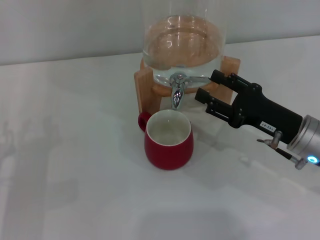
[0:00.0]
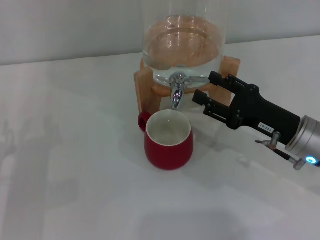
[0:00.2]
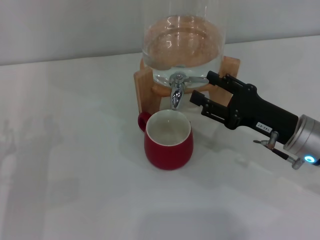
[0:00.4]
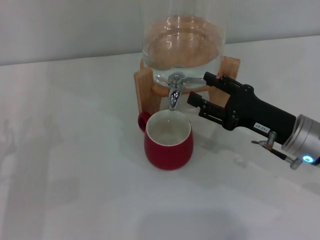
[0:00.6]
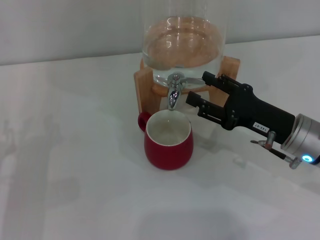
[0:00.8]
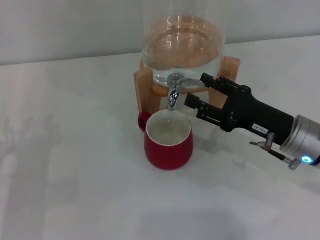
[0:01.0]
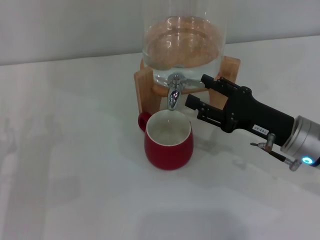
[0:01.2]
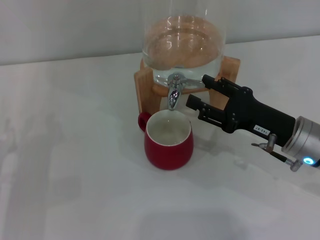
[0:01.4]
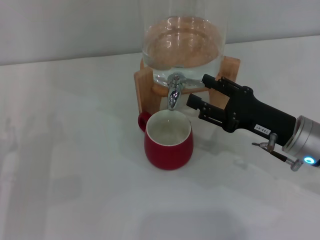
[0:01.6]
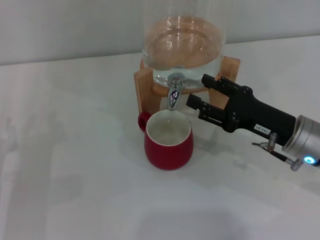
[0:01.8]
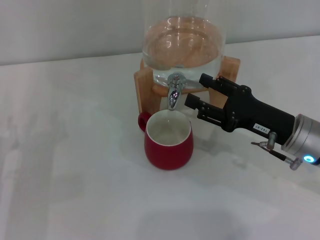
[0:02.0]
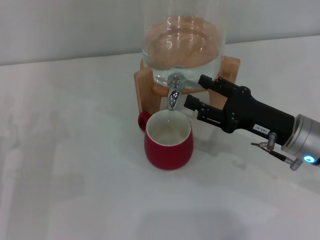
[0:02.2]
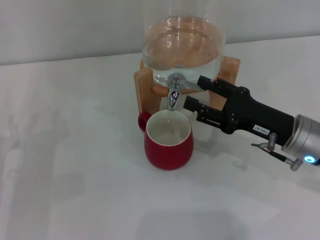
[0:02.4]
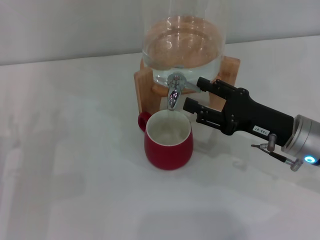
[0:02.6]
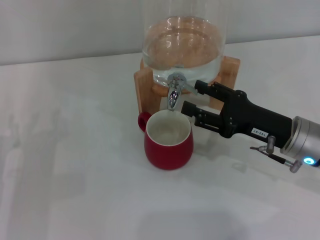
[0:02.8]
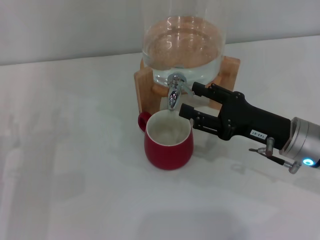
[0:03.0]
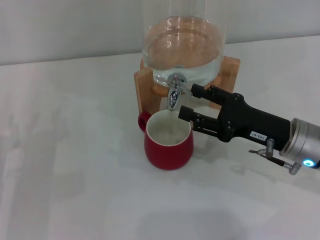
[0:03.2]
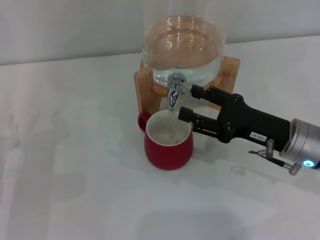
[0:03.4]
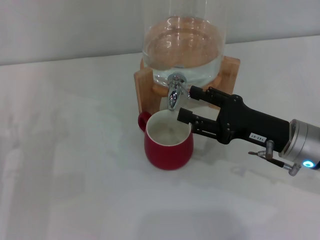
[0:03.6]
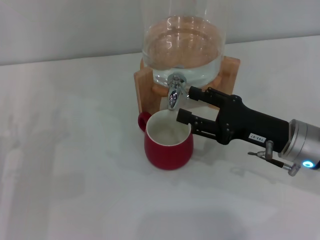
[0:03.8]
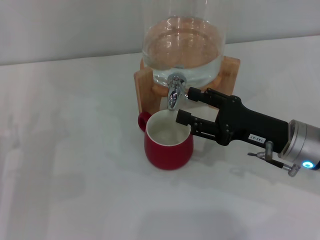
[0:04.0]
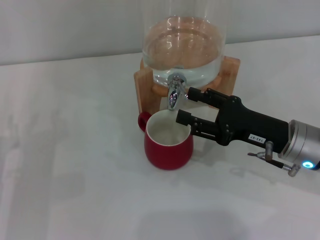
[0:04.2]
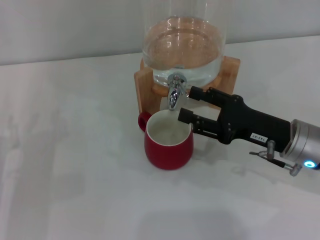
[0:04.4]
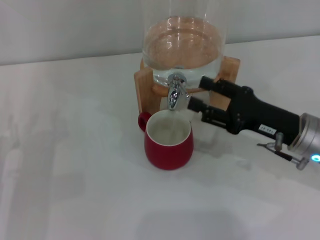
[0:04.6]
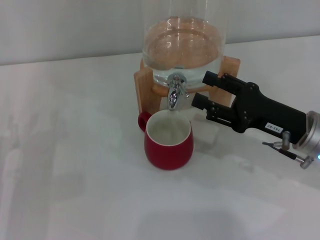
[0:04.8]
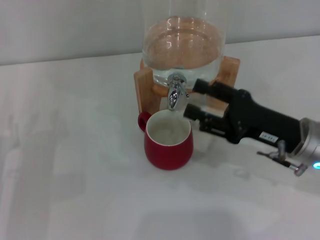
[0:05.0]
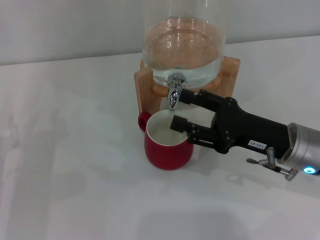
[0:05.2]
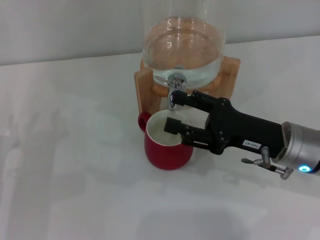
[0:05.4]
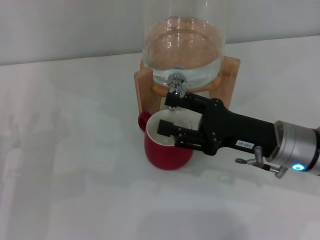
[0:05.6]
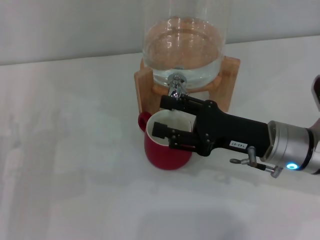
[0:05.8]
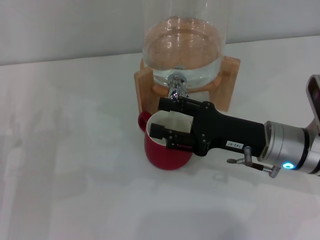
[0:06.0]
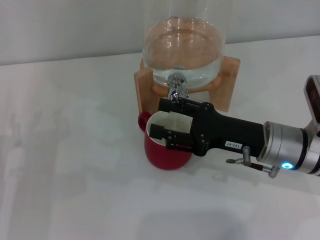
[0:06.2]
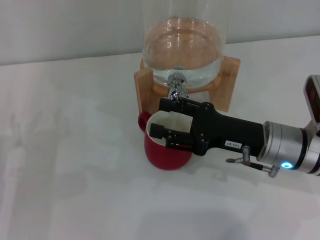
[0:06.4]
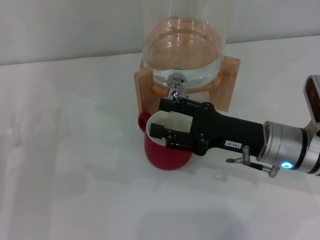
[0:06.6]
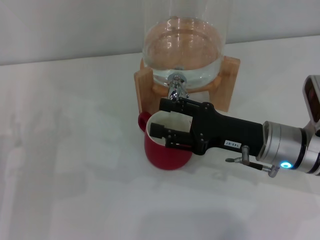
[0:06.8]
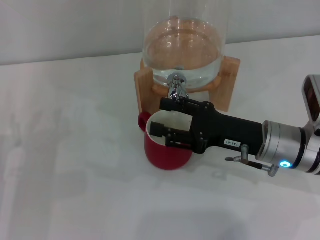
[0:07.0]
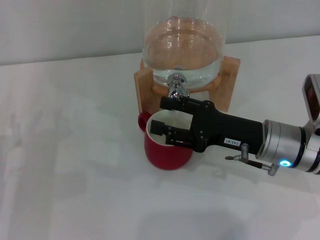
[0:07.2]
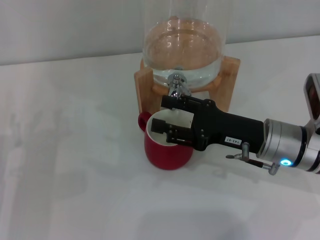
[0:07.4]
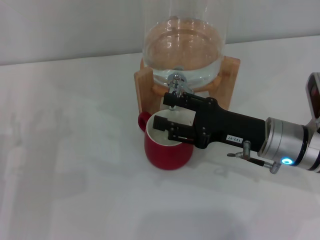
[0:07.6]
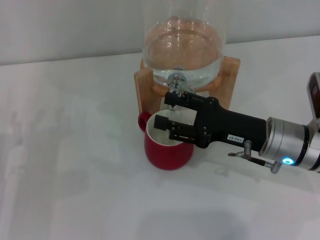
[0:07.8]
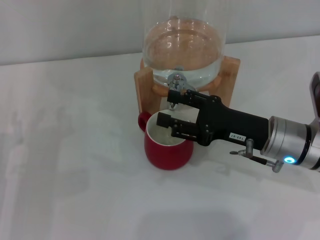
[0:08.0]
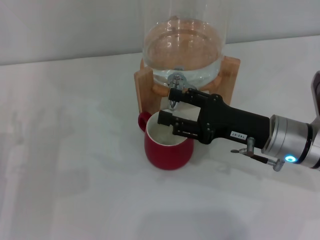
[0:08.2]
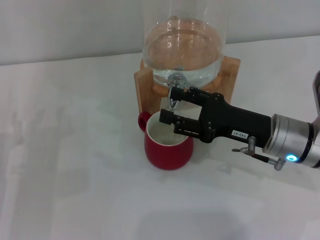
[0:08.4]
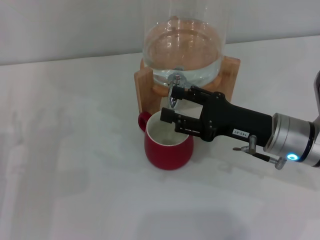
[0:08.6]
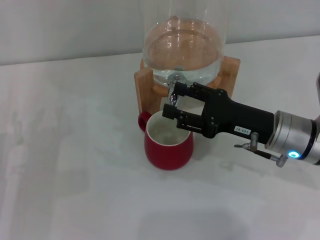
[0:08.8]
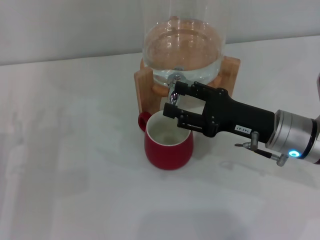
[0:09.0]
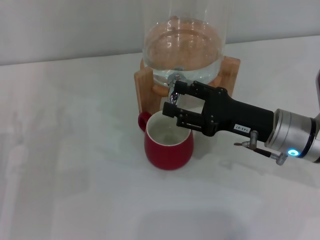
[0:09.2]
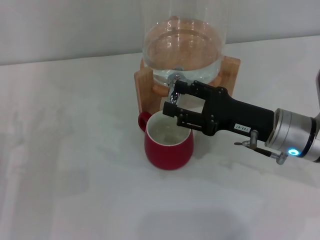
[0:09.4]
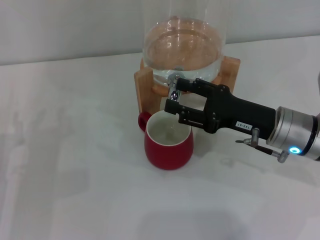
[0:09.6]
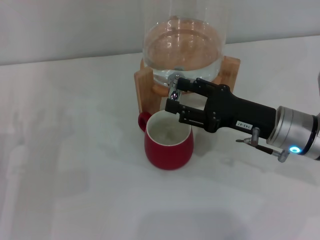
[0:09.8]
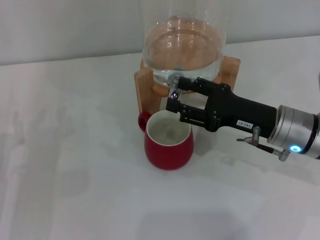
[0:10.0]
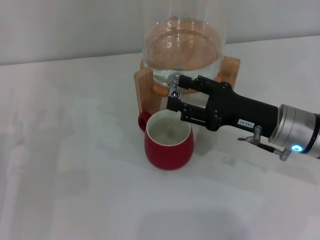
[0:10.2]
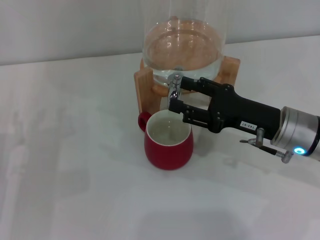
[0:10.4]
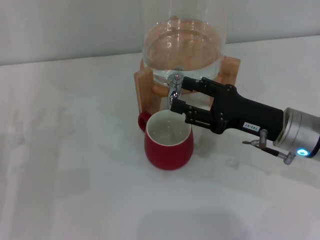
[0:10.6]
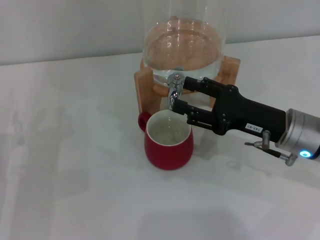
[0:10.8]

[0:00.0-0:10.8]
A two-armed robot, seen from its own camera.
Task of the whole recording: the left gripper pick up the red cup and place it horizontally under the faucet, the right gripper turn on the faucet to fill the cup, and then turn off the faucet.
Step, 0.0 to 6.4 s: Open the dispenser valve and fill the cup with water with the right gripper.
0.0 to 1.6 s: Both grippers stay put.
1.6 to 3.0 s: There are only small adjustments of the grippers.
3.0 to 4.6 s: Both grippers stay about where they are.
4.6 to 6.2 s: The grippers stay close to where they were, moving slightly.
6.2 to 7.8 s: Neither gripper changes place.
7.8 to 9.2 s: The two grippers keep their place.
9.2 to 10.8 s: The two grippers keep their place.

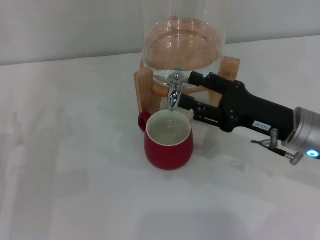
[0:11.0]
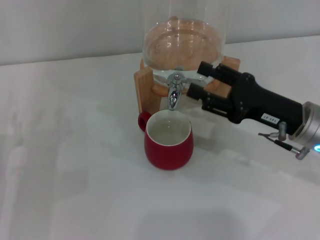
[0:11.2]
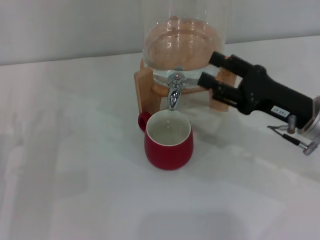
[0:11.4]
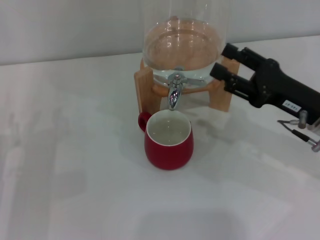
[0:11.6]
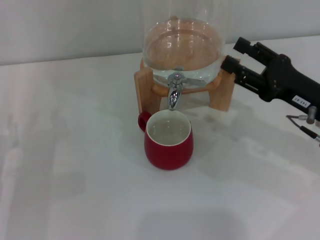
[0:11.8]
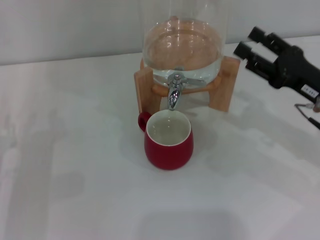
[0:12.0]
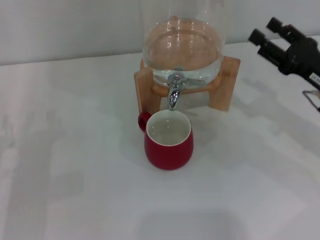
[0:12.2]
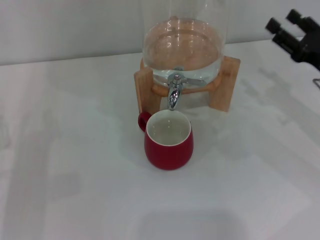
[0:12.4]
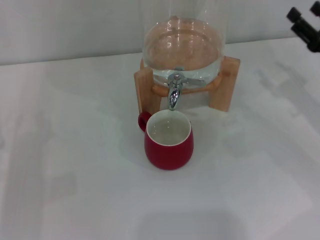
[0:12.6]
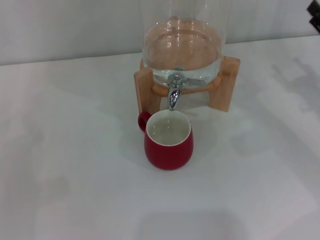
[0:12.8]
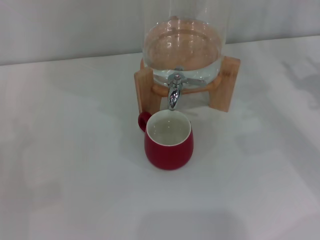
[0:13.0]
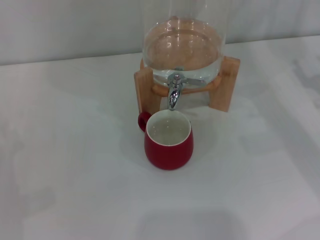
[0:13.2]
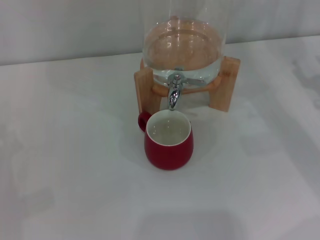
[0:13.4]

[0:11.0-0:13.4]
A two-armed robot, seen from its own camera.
Task of the whole recording: the left gripper pick up the red cup and place it horizontally under the faucet, the right gripper turn on the faucet to fill the cup, and then turn off the faucet.
11.0 to 12.2 s: The right gripper shifts some 10 cm to the right.
12.2 to 13.4 s: The right gripper heads to the right, covering approximately 5 cm.

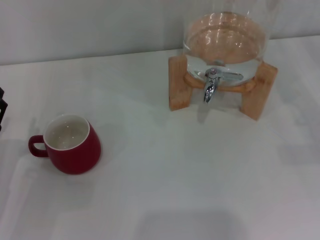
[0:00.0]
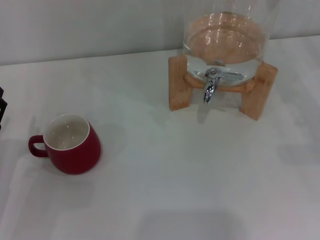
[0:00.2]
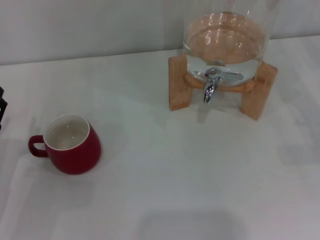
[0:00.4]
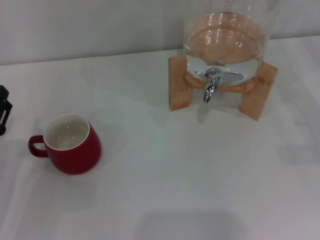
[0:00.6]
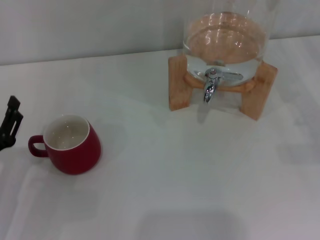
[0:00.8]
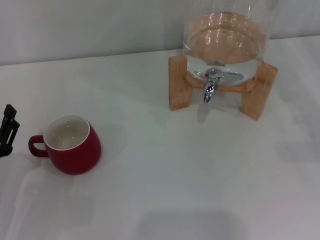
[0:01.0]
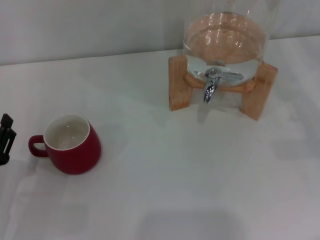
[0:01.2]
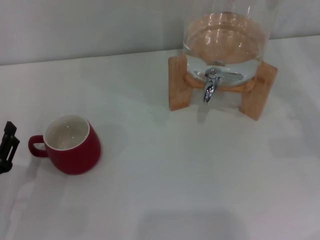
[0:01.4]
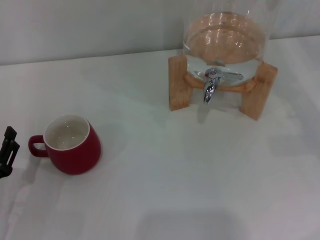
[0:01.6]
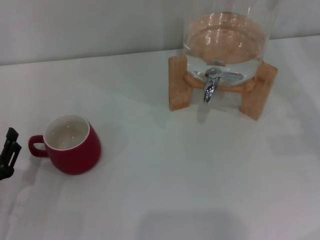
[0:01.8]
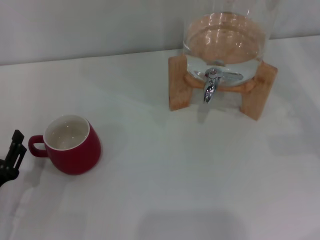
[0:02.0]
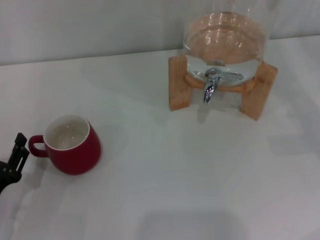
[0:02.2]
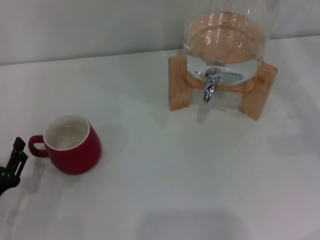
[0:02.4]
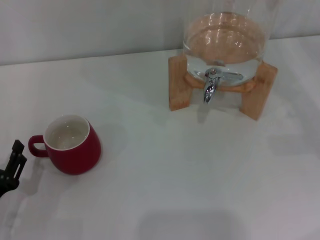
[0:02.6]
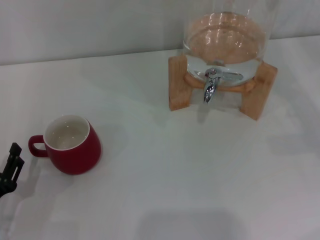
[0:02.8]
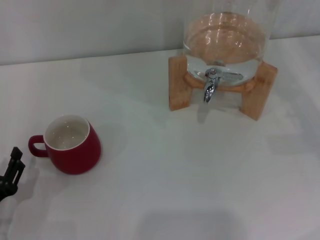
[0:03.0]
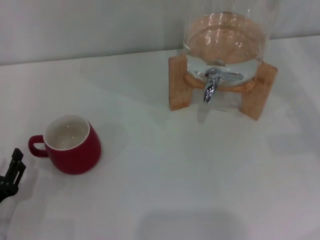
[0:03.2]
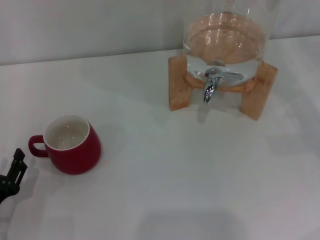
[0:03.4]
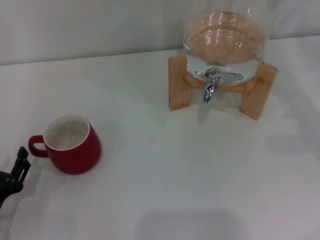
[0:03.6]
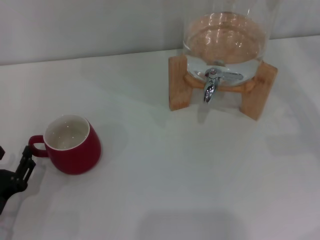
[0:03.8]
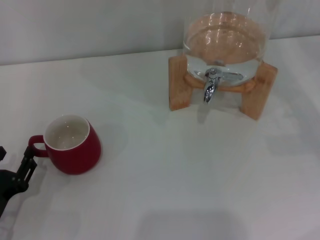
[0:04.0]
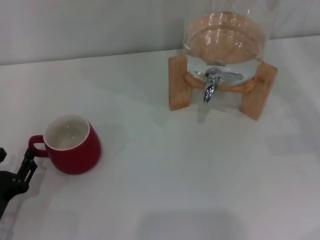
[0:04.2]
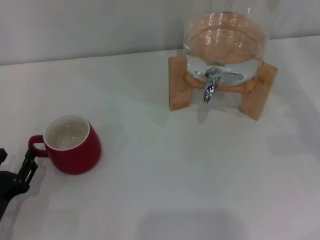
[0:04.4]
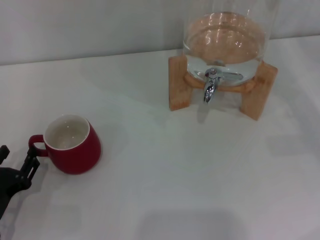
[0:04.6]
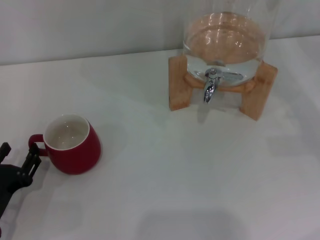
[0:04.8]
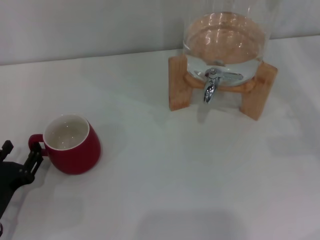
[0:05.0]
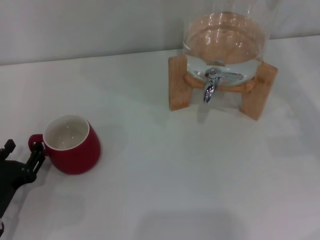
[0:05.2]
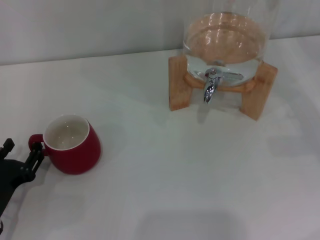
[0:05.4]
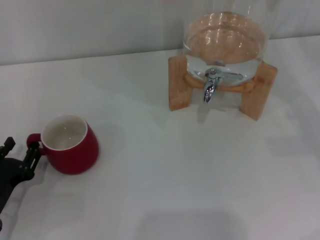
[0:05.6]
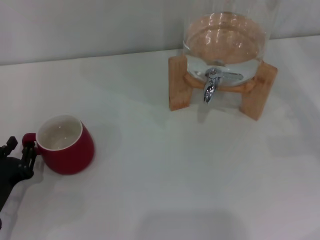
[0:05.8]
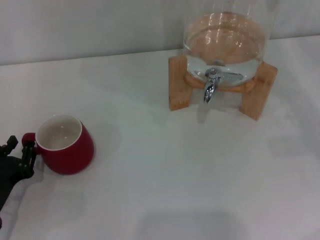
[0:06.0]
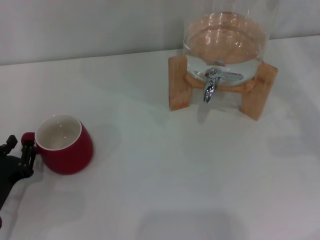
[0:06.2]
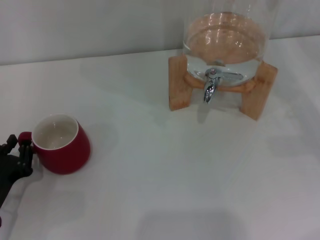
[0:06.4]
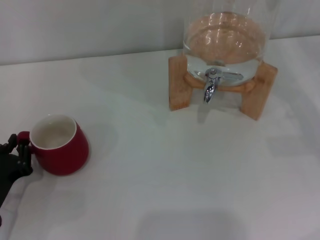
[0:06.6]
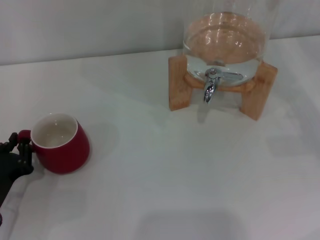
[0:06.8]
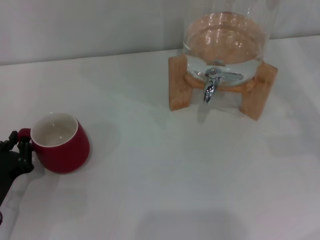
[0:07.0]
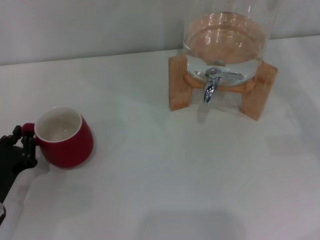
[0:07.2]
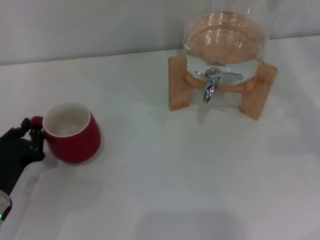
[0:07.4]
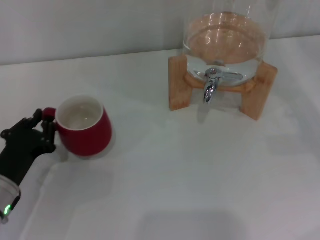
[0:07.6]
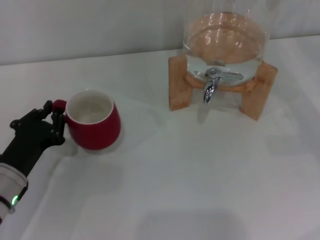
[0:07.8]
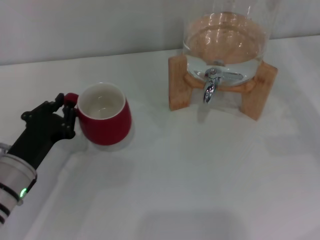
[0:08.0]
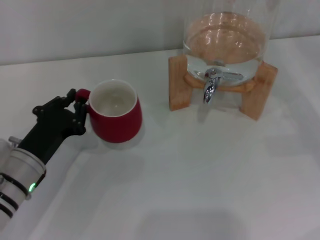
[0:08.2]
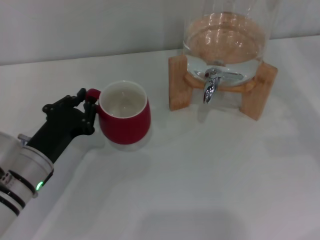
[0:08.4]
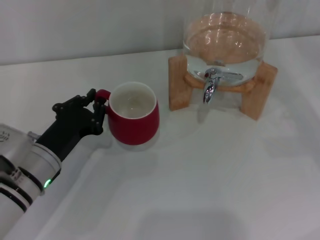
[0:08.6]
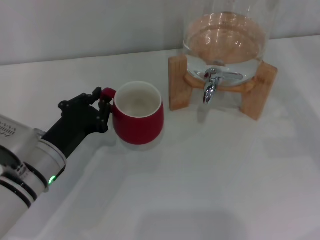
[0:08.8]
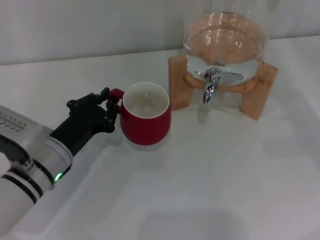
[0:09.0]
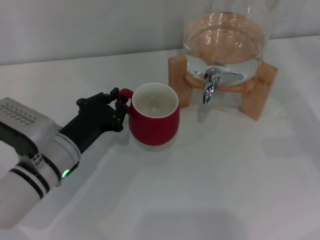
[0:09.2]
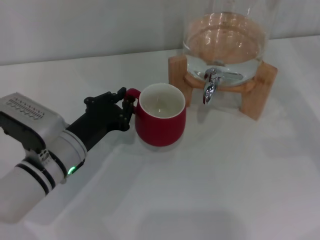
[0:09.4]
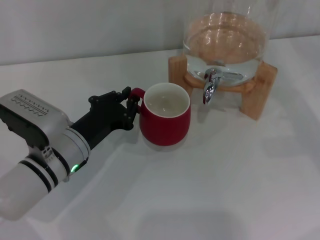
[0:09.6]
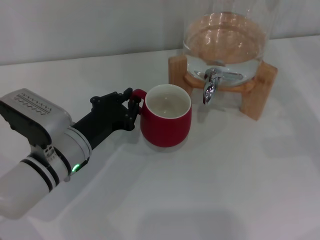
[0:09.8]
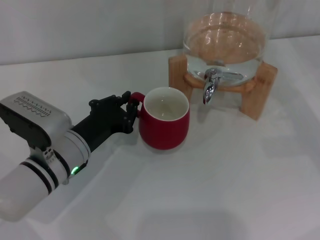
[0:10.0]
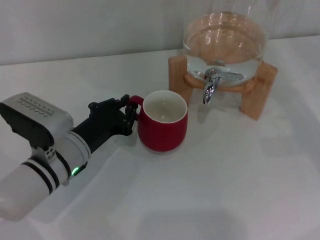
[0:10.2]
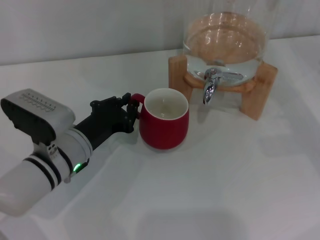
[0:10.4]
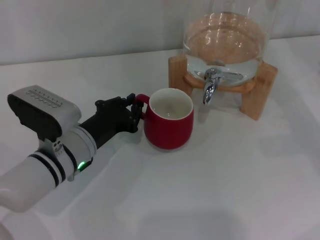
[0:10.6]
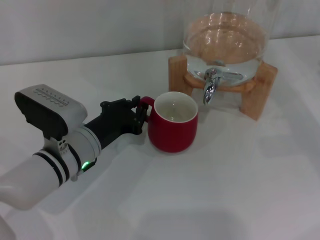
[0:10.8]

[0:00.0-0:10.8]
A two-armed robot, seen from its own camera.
Task of the whole recording: the left gripper pick up the red cup and place it horizontally under the faucet, the right gripper turn on the faucet to fill the cup, and then turn off the faucet.
0.0 to 1.6 s: The left gripper moves approximately 5 cm.
1.6 to 6.2 s: There are only small adjustments of the grippers.
6.2 to 7.8 s: The left gripper changes place by roughly 5 cm.
7.8 to 9.2 s: The left gripper goes some 5 cm to the right.
9.2 to 10.8 s: The grippers make only small movements.
